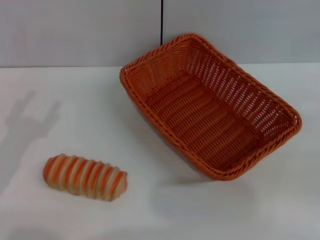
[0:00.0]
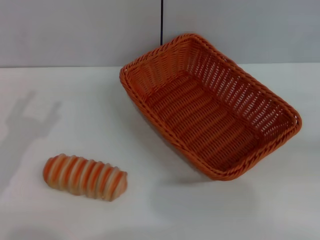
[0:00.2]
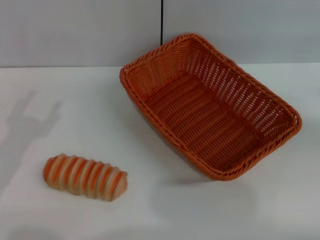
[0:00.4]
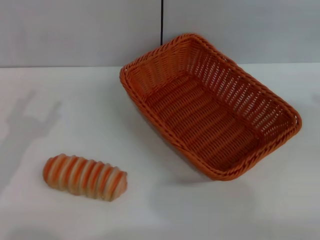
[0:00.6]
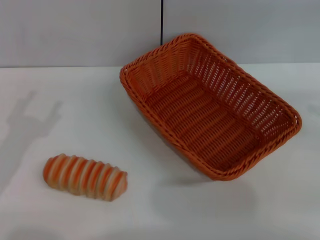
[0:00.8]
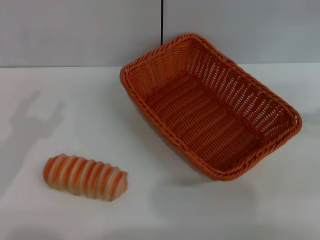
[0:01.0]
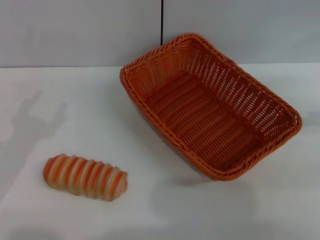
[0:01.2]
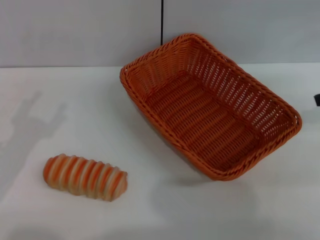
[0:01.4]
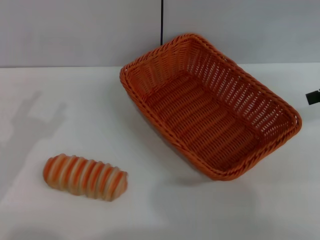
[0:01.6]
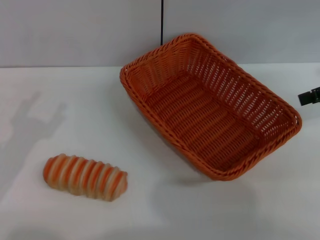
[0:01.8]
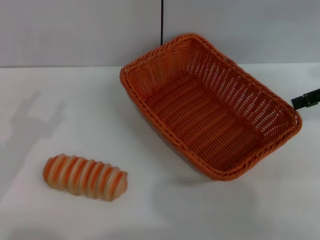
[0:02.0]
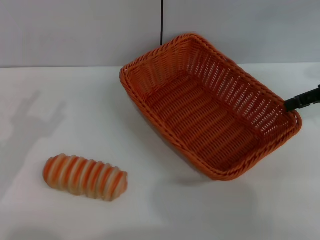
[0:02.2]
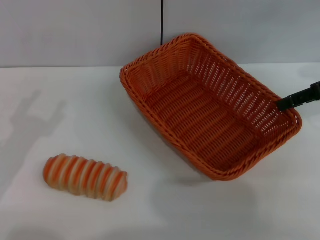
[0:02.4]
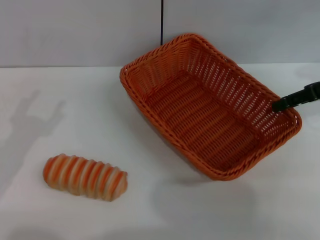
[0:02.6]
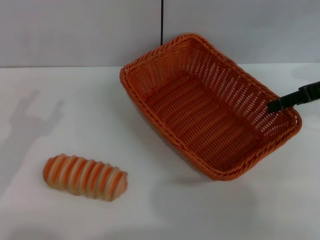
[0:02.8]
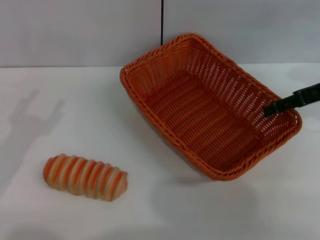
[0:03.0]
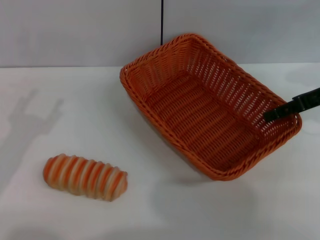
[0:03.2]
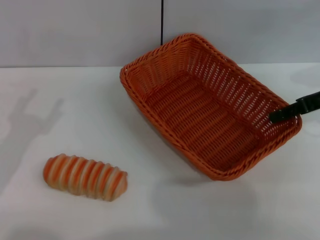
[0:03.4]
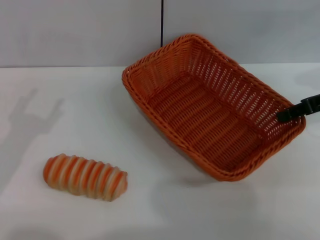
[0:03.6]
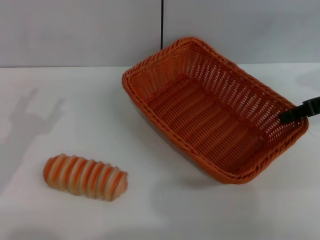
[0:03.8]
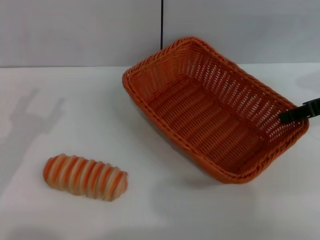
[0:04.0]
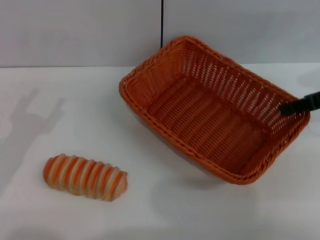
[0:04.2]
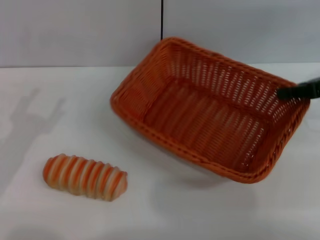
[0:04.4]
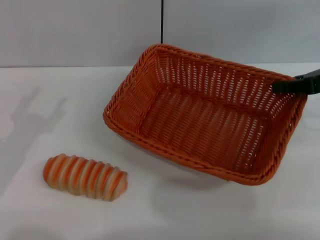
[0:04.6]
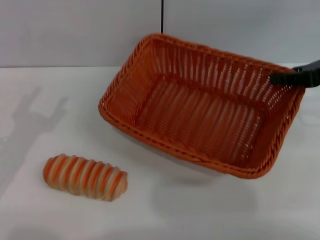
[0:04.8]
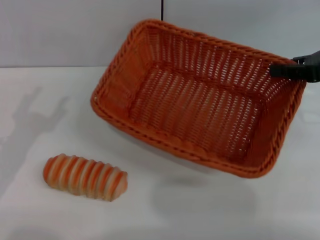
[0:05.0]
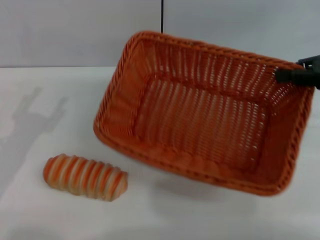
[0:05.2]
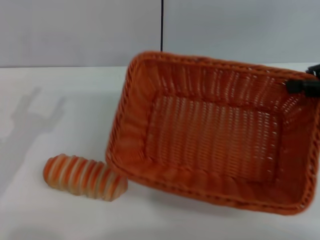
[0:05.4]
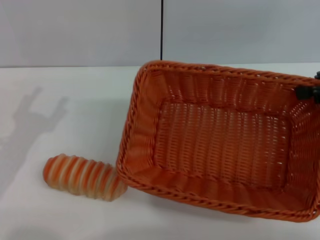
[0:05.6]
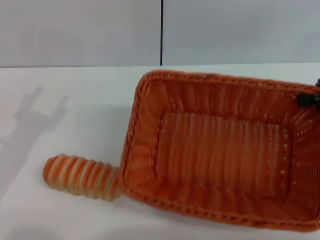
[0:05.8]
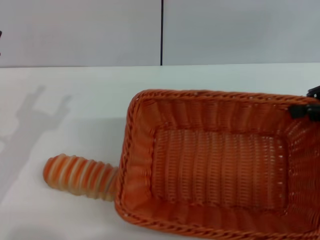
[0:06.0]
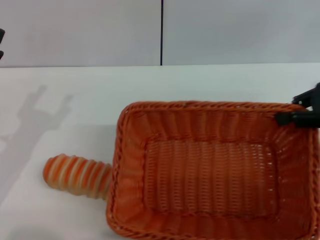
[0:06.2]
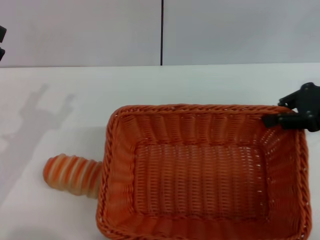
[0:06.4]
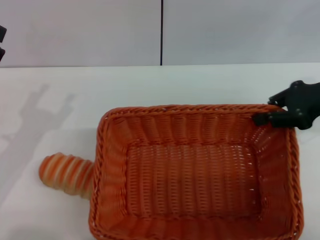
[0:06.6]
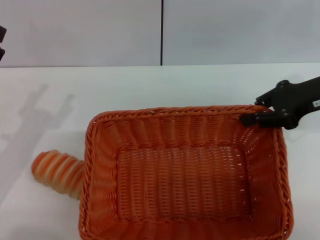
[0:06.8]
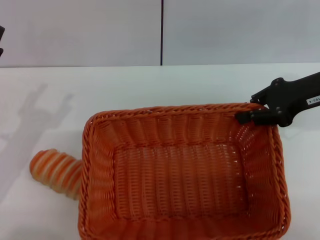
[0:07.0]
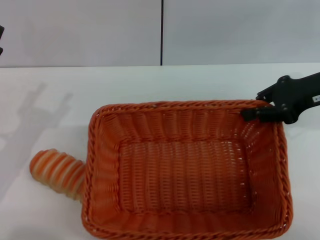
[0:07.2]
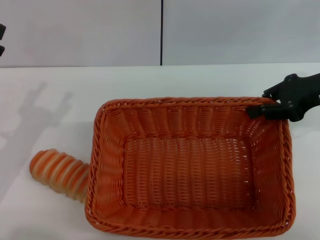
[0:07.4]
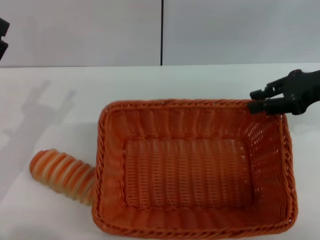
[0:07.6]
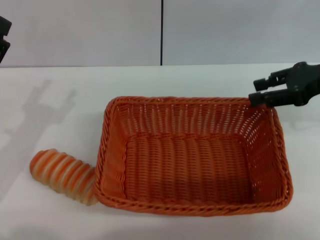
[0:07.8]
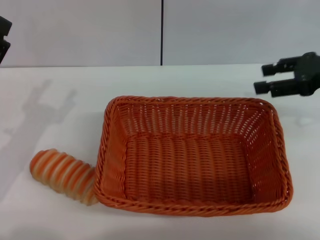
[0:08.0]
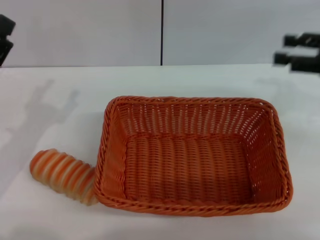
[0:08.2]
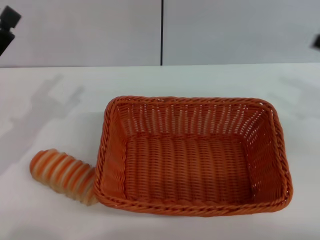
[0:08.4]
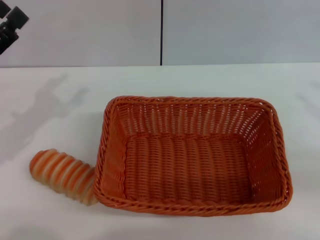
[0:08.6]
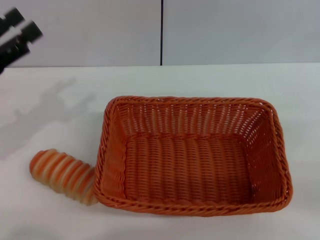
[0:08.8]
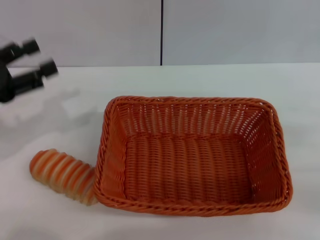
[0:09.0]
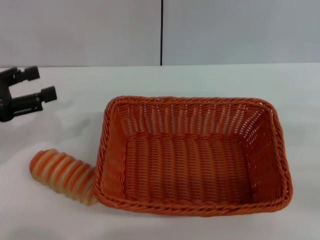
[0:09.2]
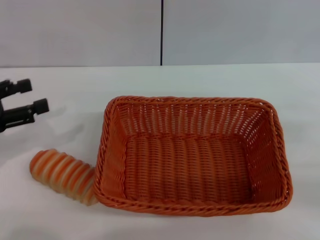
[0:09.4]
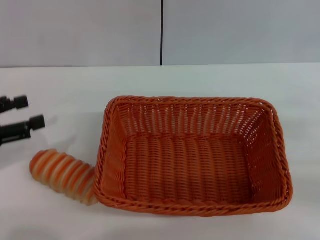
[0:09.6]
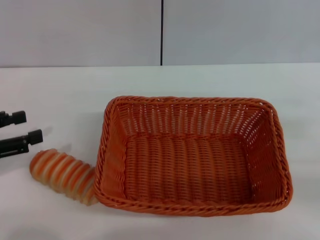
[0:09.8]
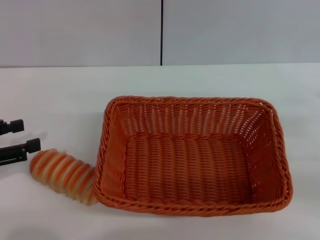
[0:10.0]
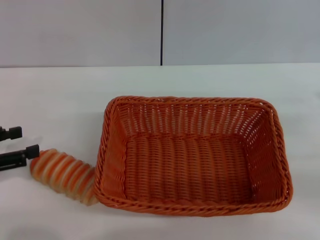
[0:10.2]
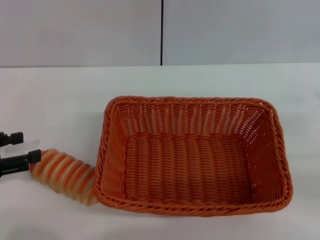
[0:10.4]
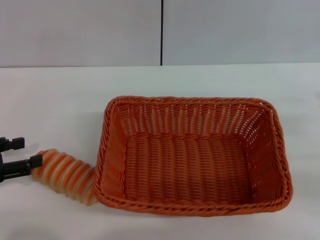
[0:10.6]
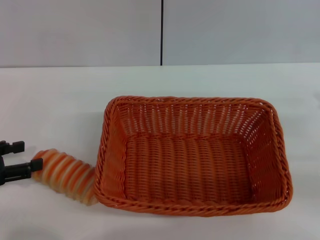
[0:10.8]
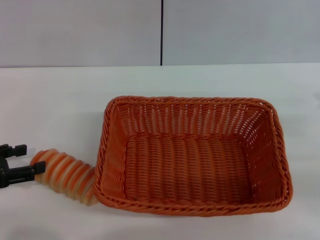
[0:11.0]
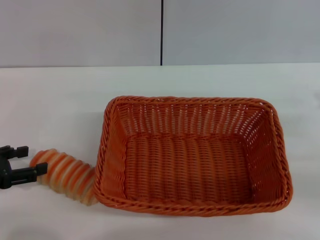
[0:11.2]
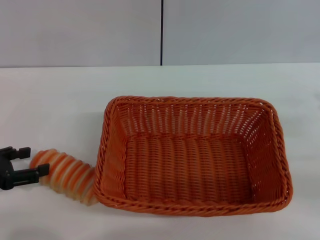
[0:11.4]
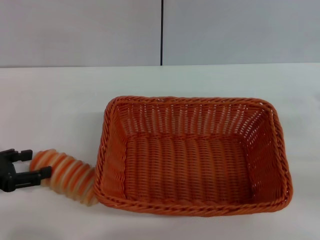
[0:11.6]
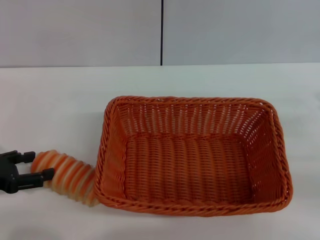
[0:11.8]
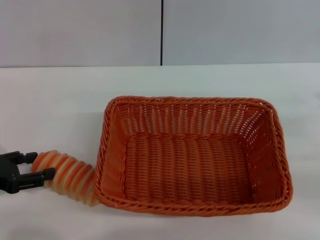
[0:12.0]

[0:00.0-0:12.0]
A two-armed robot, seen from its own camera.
Step, 0:00.0 to 0:05.0: Pick up the light basket with the right gripper.
Step, 0:05.2 to 0:08.0: Place the light basket in the center of view with the right gripper.
0:00.0 to 0:01.6: The right gripper shifts some 15 cm forward, upward and to the left.
0:01.6 to 0:03.0: The right gripper travels to the left by about 5 cm.
0:03.0 to 0:04.4: The right gripper closes its fingers.
0:06.0 to 0:07.6: The right gripper goes roughly 5 cm to the left.
0:07.6 to 0:09.0: The right gripper shifts some 20 cm backward, to the right and downward, and opens. The left gripper moves upward, roughly 5 cm.
0:09.0 to 0:10.4: The left gripper ends up about 10 cm from where it was.
0:10.4 to 0:12.0: There are only small adjustments of the grippers.

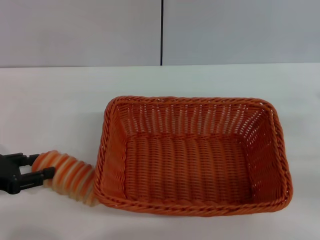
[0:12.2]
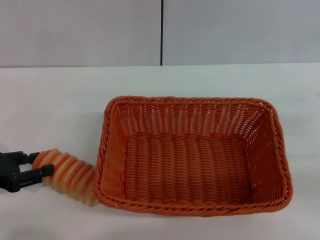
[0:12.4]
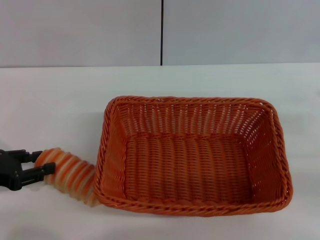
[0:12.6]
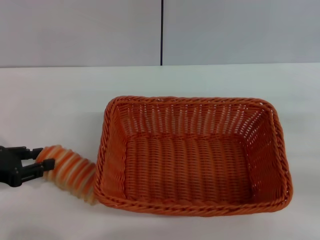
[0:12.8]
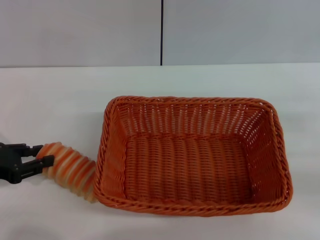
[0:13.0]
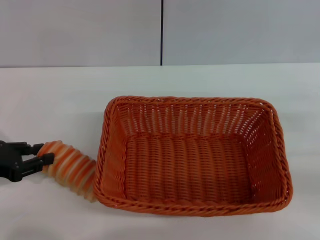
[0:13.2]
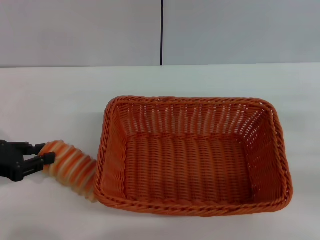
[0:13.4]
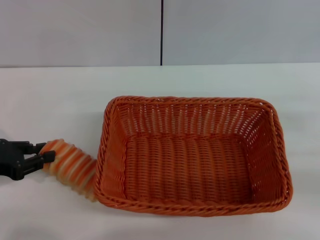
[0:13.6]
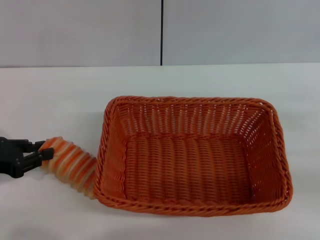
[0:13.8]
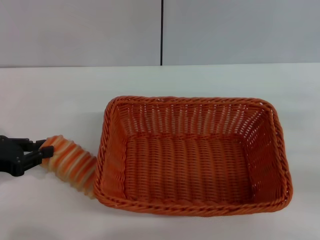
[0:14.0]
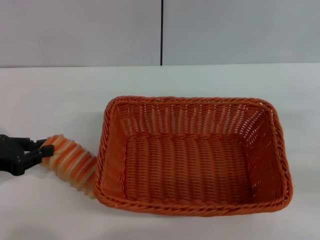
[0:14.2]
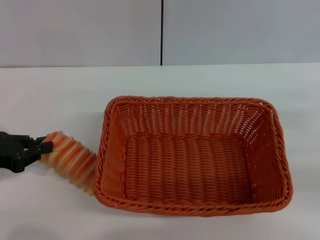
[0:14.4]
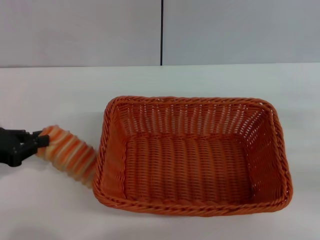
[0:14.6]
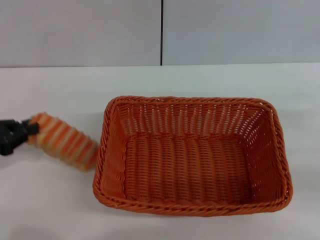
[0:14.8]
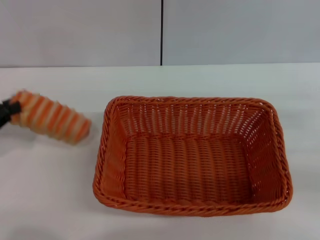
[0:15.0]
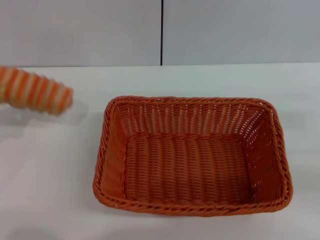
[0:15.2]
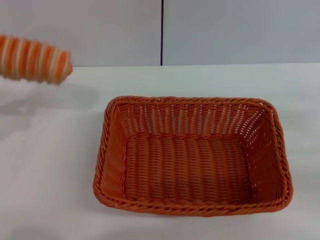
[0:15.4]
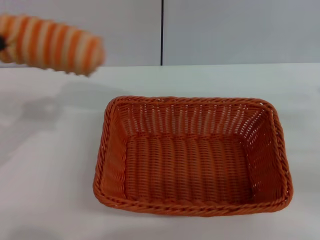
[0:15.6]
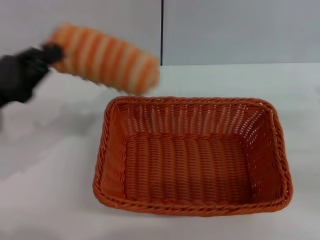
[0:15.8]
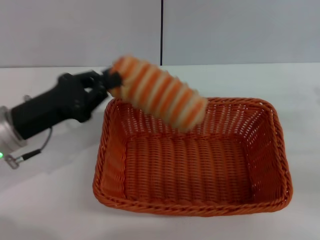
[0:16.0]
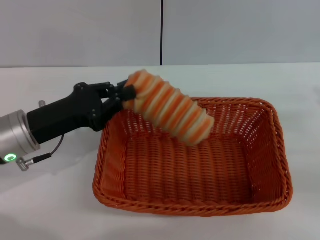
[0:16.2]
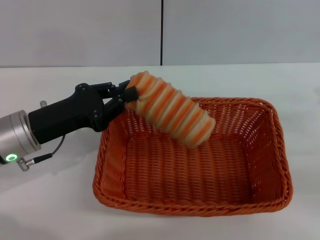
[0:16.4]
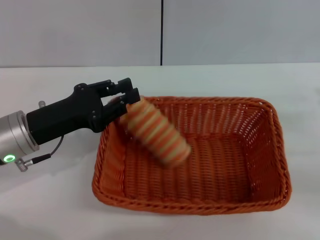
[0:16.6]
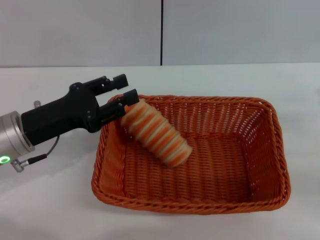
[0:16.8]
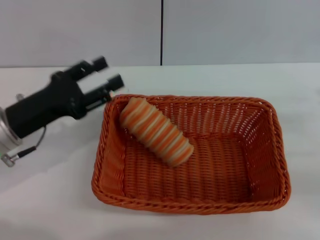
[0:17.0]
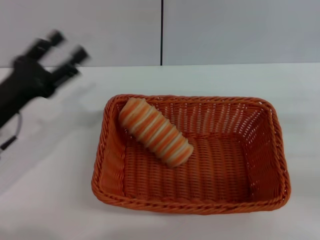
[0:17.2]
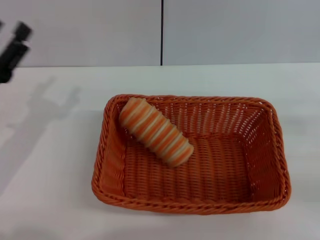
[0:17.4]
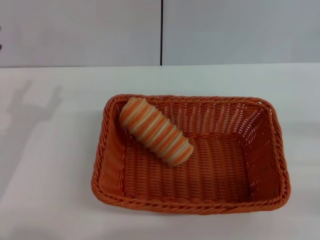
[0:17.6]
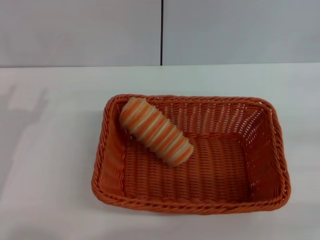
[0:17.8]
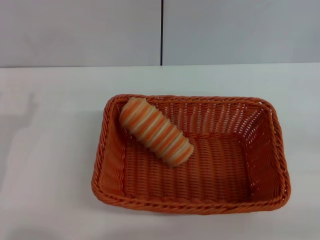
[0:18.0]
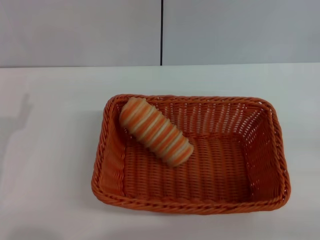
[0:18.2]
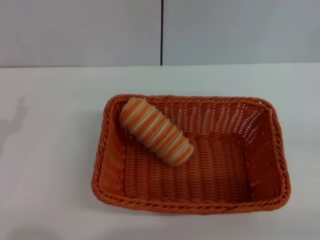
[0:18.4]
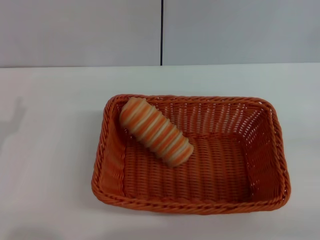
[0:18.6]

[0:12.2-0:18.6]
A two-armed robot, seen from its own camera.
Step, 0:12.2 to 0:15.2: Pick up the long bread with the left gripper.
Step, 0:15.4 to 0:16.8: Place the long bread into the light basket with the left gripper.
0:12.2 to 0:13.8: The left gripper closes its fingers.
0:13.8 to 0:15.4: The left gripper shifts by roughly 5 cm.
0:15.4 to 0:17.0: The left gripper moves to the right, some 15 cm, and opens its fingers.
0:17.0 to 0:18.6: The right gripper moves backward, approximately 5 cm. Meanwhile the left gripper heads backward and to the left, covering some 10 cm, and opens.

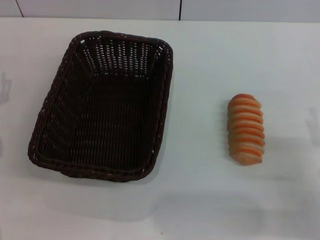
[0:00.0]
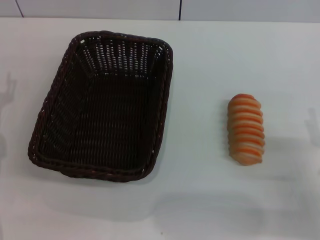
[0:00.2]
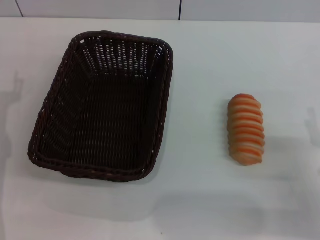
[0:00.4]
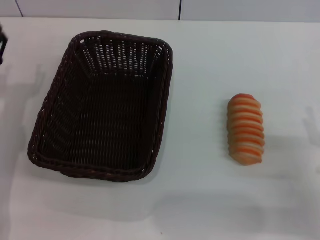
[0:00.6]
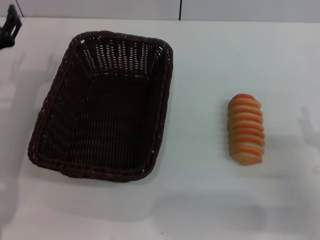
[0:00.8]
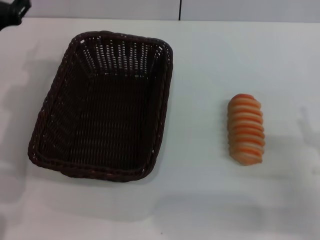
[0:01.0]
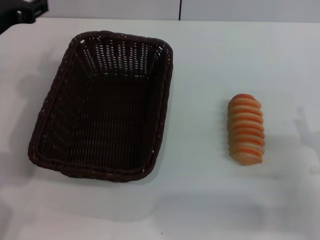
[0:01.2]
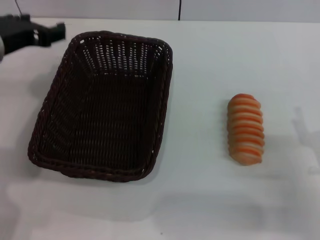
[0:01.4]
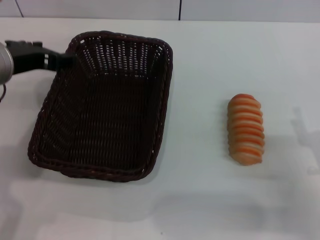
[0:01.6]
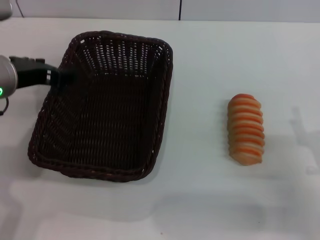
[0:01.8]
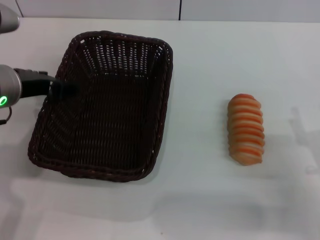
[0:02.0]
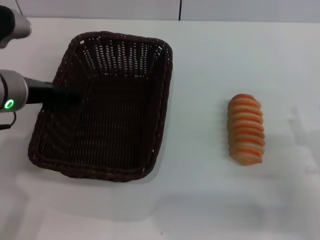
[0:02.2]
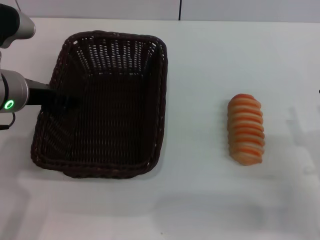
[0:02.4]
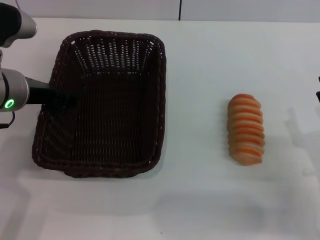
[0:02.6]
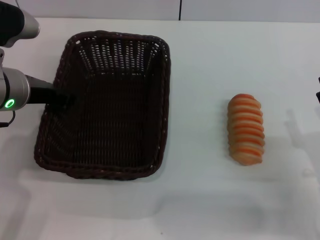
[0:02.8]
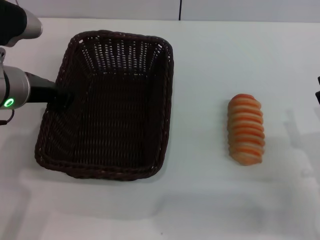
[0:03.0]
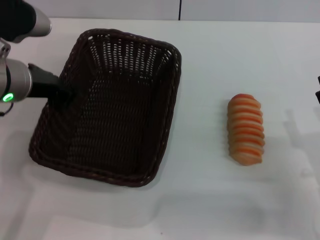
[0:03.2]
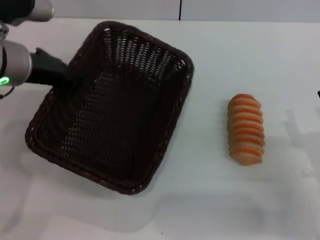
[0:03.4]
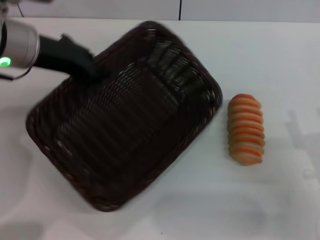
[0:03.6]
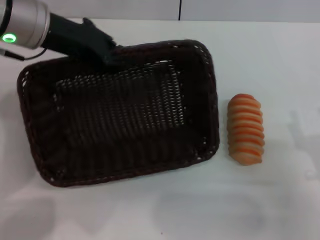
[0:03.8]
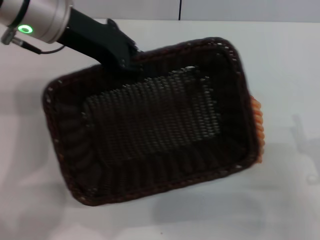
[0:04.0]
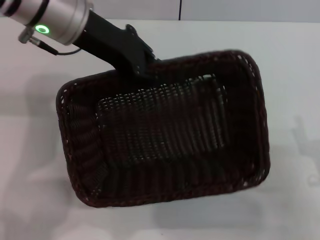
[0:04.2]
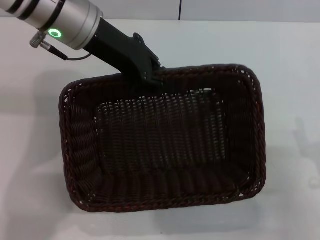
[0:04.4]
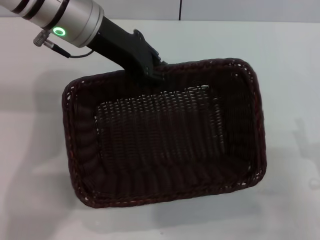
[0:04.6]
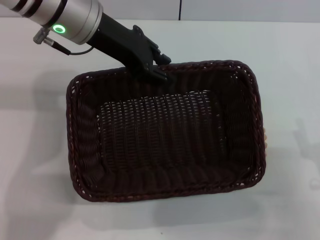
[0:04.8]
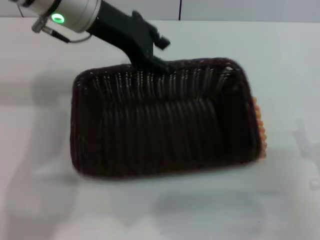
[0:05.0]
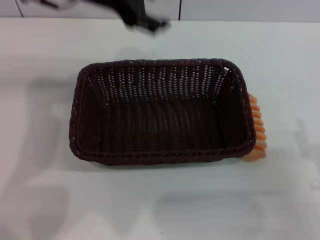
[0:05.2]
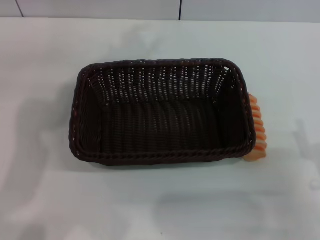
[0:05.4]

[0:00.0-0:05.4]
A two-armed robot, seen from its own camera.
Step, 0:00.0 to 0:03.4: Pick up the dark basket with the left gripper.
Step, 0:03.8 to 0:05.0: Place the dark basket in the center of view with the left gripper.
0:00.0 to 0:01.4: The left gripper goes approximately 20 cm upward and to the right.
0:02.8 to 0:04.0: The left gripper shifts roughly 10 cm upward and forward, and closes its fingers.
0:04.0 to 0:05.4: The left gripper opens.
